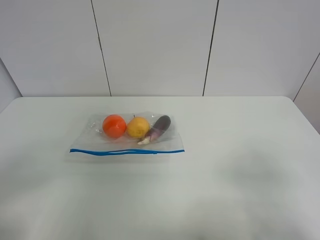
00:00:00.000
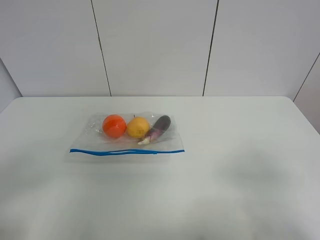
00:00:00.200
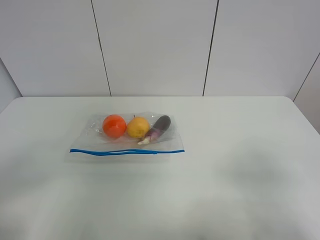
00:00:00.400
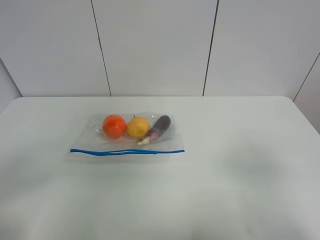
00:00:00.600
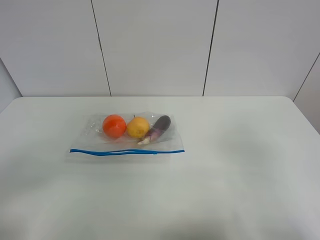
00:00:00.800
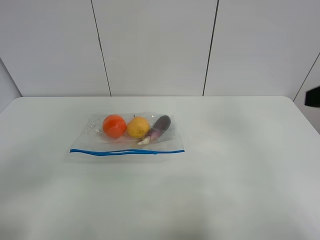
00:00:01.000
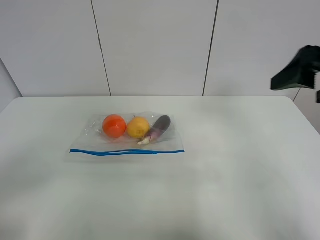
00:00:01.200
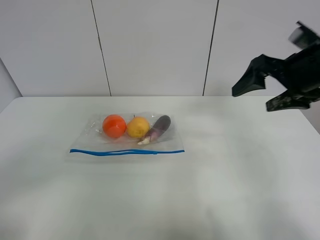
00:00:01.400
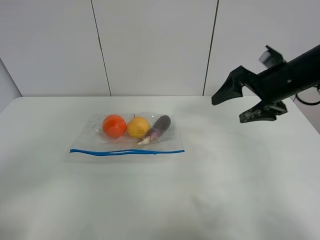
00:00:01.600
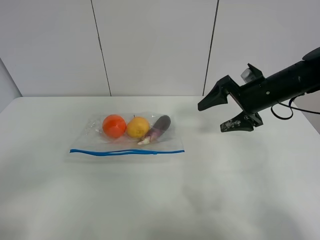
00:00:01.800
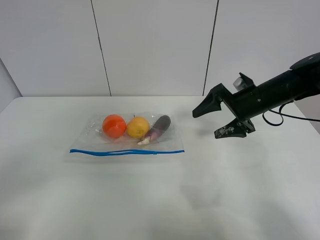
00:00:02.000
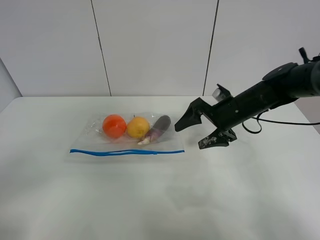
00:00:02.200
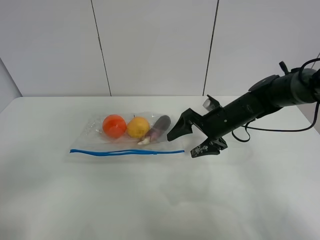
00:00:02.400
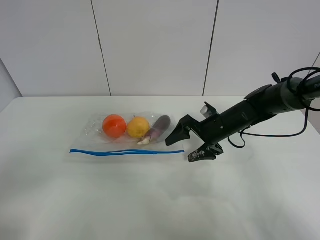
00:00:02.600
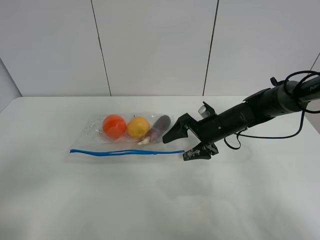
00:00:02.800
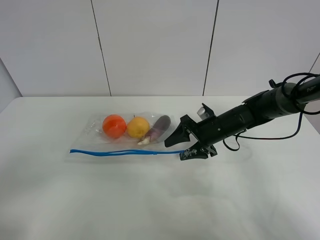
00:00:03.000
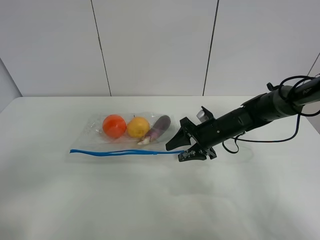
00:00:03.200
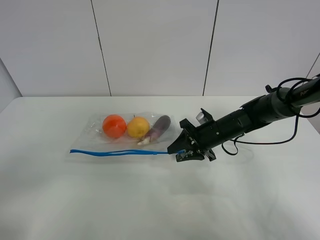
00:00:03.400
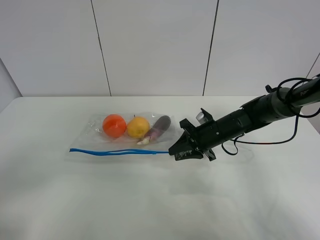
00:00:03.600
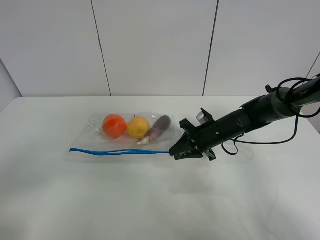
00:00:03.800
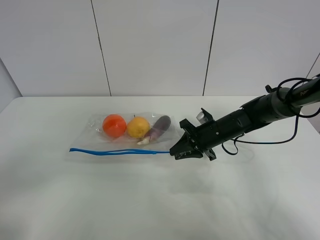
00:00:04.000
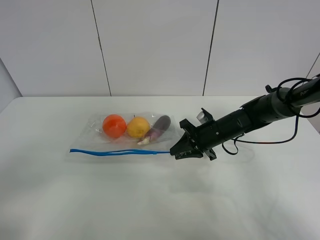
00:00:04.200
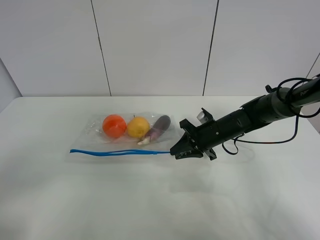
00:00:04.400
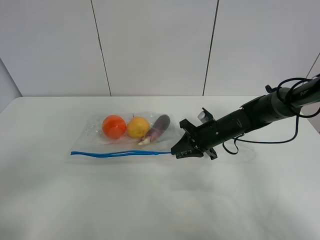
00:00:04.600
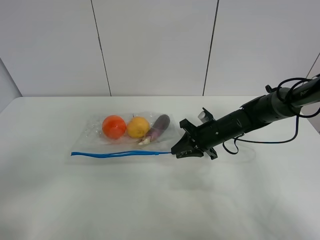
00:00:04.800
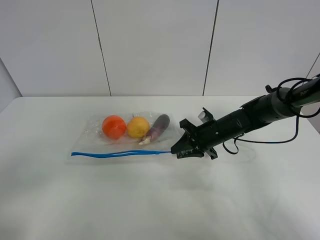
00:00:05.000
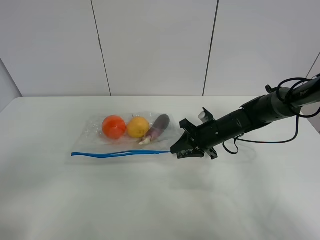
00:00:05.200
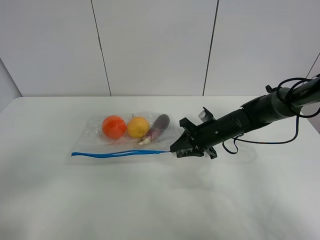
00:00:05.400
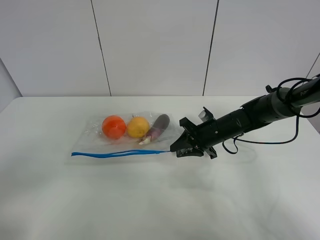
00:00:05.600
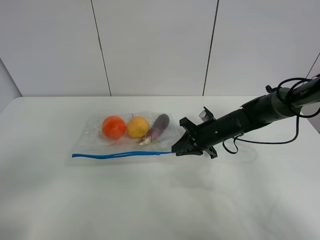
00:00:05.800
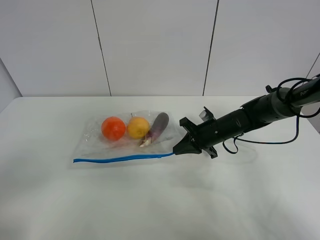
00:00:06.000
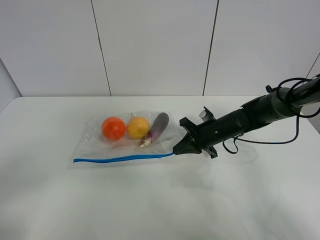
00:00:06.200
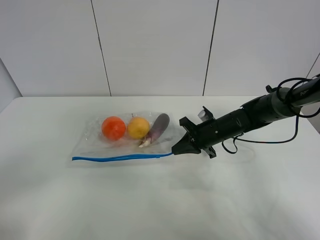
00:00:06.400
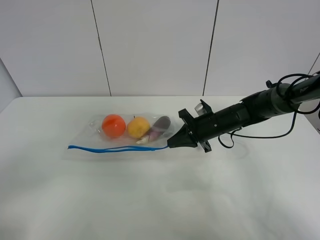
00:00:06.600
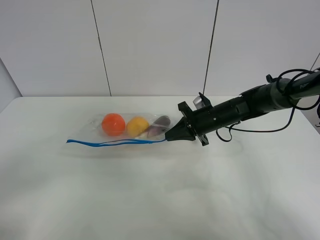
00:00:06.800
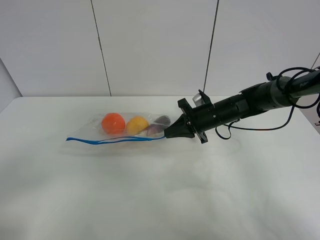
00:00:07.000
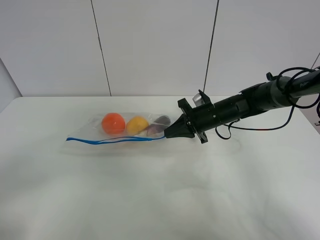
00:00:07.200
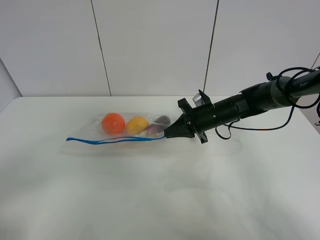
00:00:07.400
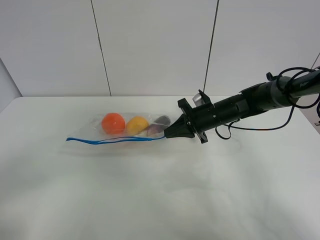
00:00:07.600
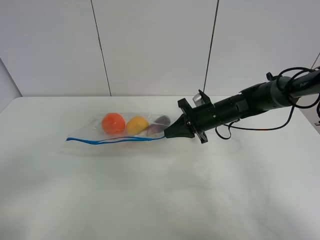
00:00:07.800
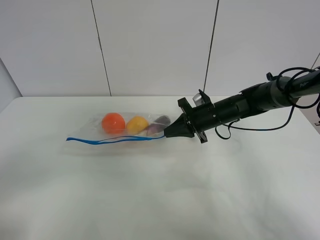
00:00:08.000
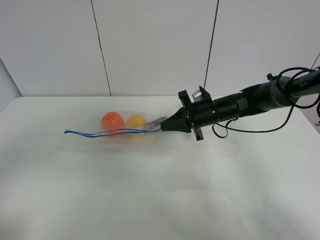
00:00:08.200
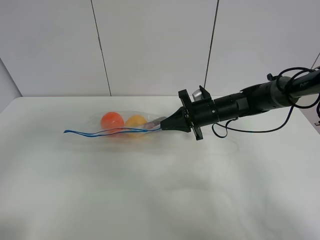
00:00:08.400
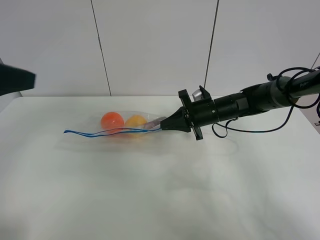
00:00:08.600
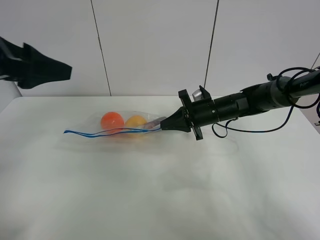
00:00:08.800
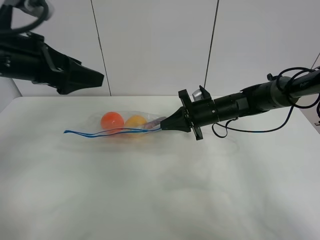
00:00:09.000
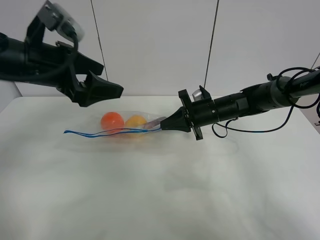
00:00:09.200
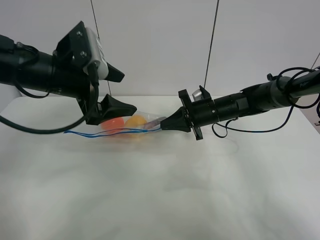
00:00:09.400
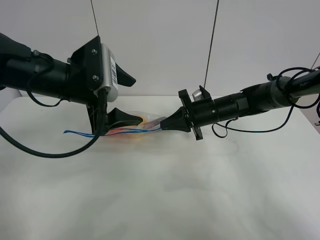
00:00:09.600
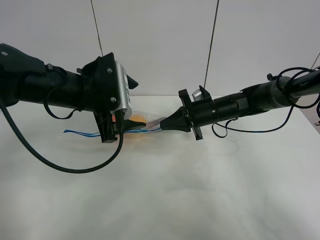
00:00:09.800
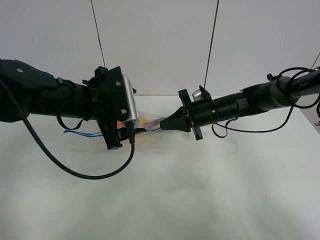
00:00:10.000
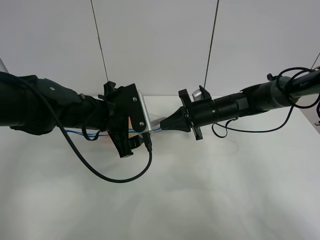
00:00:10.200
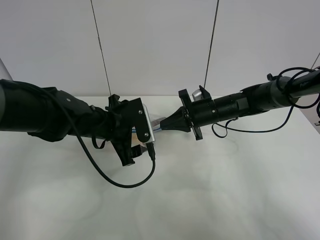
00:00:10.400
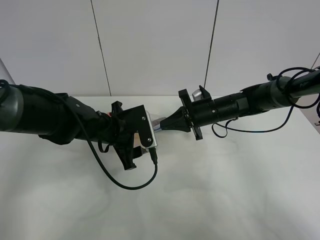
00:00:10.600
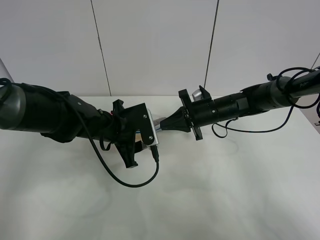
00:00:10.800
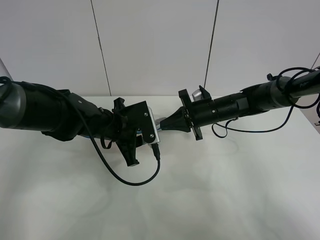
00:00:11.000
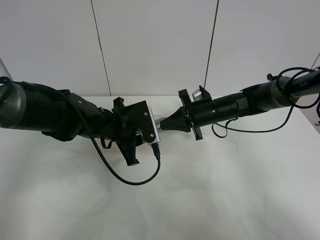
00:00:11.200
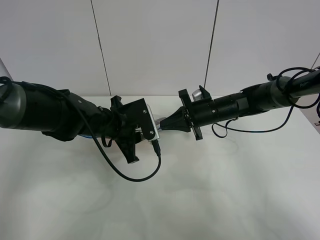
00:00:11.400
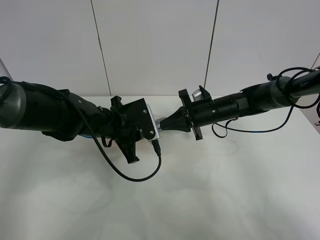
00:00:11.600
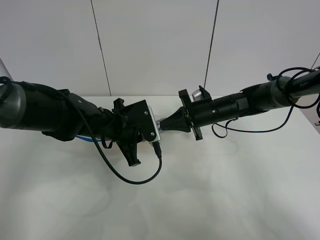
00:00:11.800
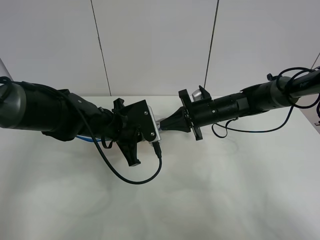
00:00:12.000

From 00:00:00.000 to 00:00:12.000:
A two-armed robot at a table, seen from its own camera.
Step, from 00:00:00.000 to 00:00:06.000: Grasp the fruit bag with right gripper.
Step, from 00:00:06.200 to 00:00:07.200: Lift the fruit bag with your right gripper.
From 00:00:00.000 to 00:00:01.600: The right gripper shifts some 30 cm forward.
From 00:00:01.600 to 00:00:03.000: The right gripper moves downward and to the left, approximately 20 cm.
From 00:00:03.000 to 00:00:04.400: The right gripper closes its fingers.
From 00:00:04.400 to 00:00:06.000: Both grippers stay about where they are.
From 00:00:06.000 to 00:00:07.600: The grippers move only a little.
From 00:00:07.600 to 00:00:09.000: The left gripper shifts some 30 cm forward.
From 00:00:09.000 to 00:00:10.400: The left gripper heads downward and to the right, covering some 20 cm.
From 00:00:10.400 to 00:00:12.000: The left gripper closes up.

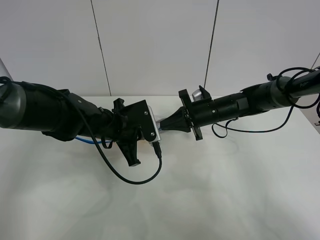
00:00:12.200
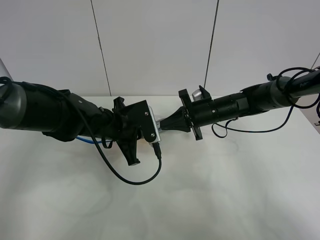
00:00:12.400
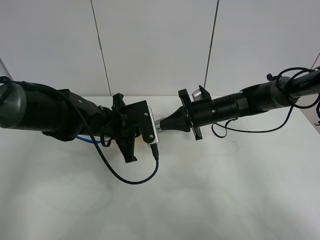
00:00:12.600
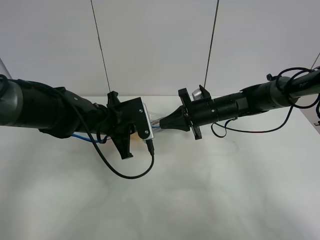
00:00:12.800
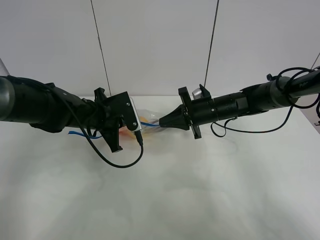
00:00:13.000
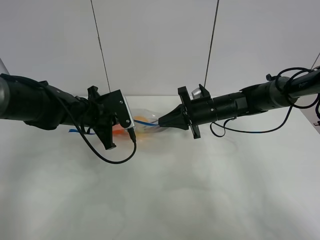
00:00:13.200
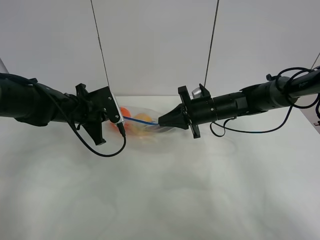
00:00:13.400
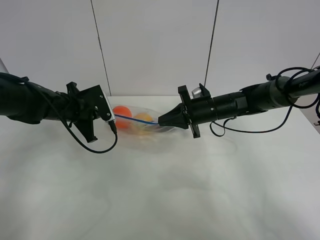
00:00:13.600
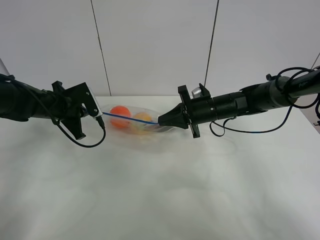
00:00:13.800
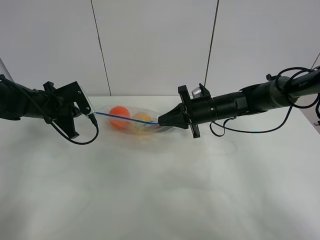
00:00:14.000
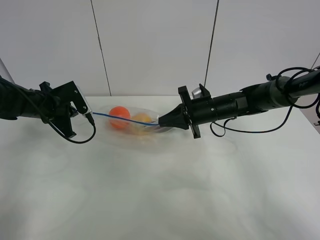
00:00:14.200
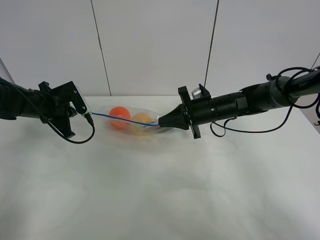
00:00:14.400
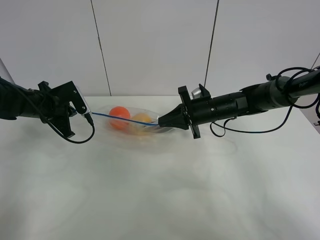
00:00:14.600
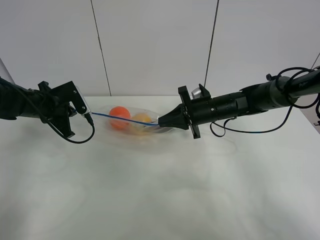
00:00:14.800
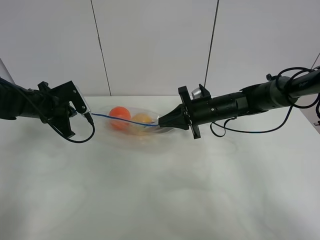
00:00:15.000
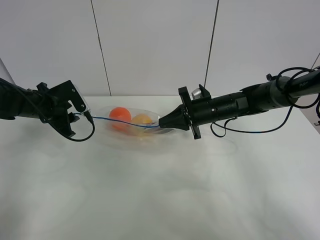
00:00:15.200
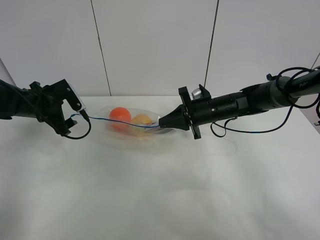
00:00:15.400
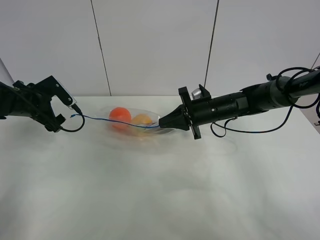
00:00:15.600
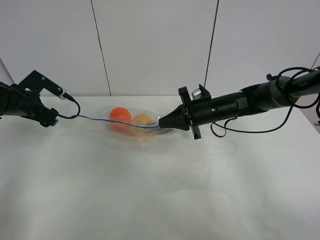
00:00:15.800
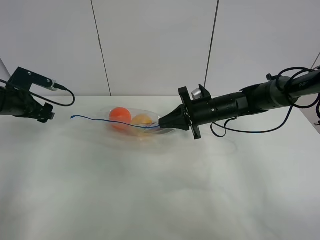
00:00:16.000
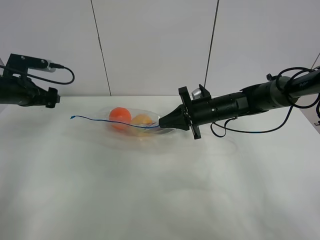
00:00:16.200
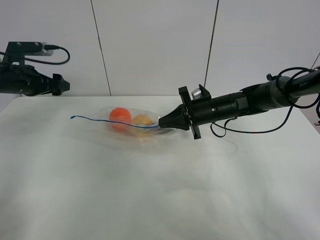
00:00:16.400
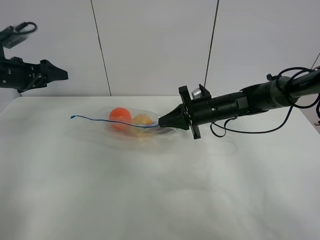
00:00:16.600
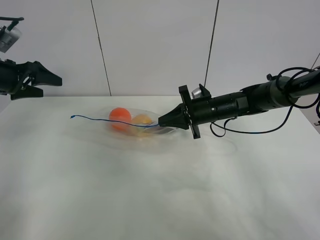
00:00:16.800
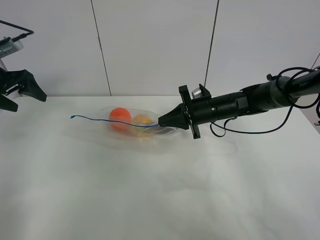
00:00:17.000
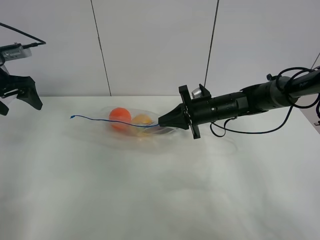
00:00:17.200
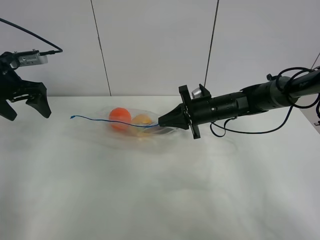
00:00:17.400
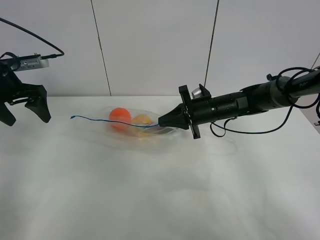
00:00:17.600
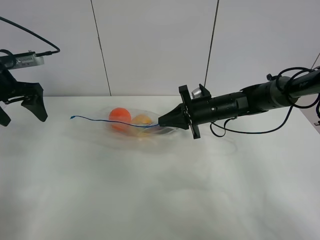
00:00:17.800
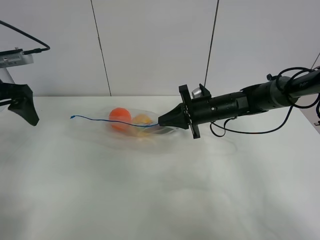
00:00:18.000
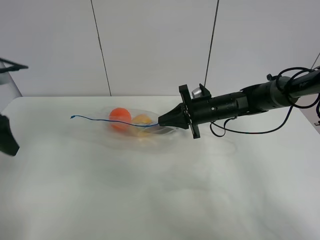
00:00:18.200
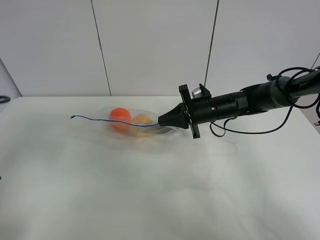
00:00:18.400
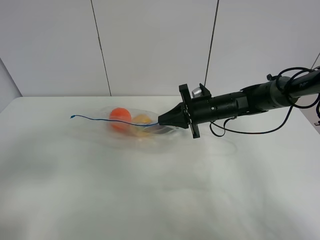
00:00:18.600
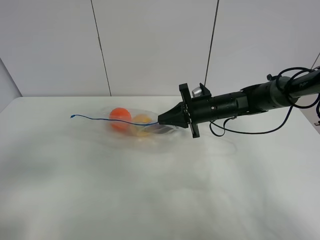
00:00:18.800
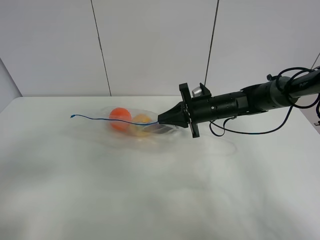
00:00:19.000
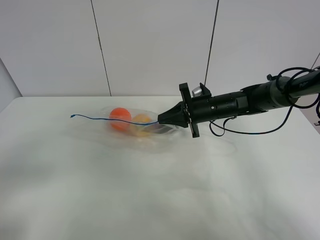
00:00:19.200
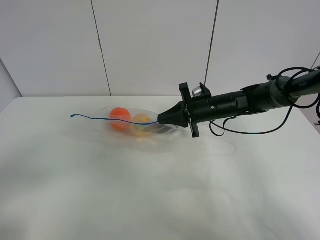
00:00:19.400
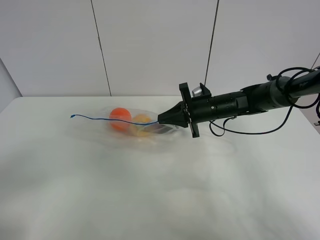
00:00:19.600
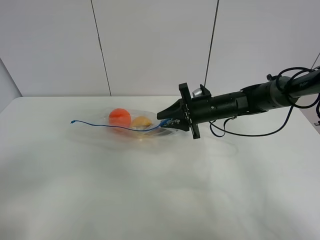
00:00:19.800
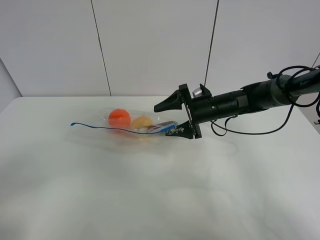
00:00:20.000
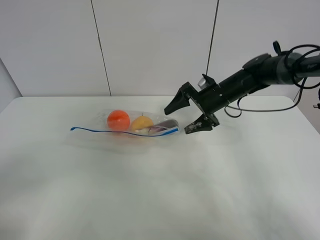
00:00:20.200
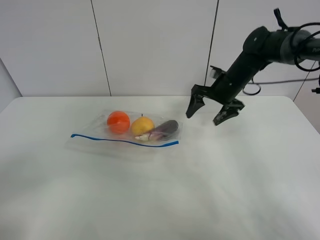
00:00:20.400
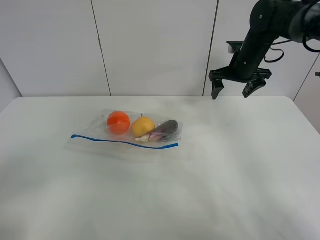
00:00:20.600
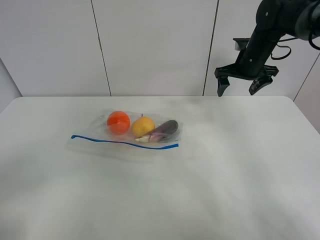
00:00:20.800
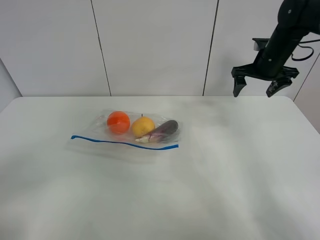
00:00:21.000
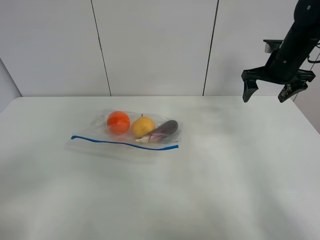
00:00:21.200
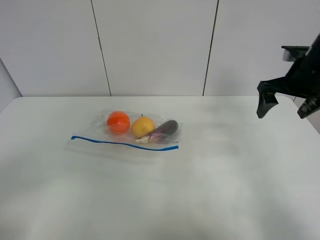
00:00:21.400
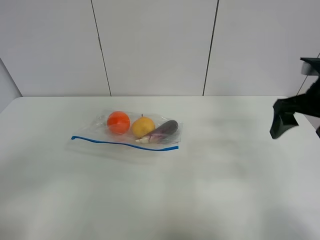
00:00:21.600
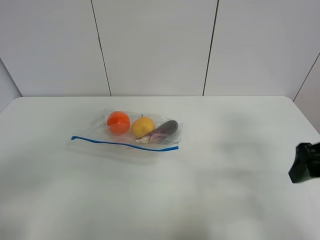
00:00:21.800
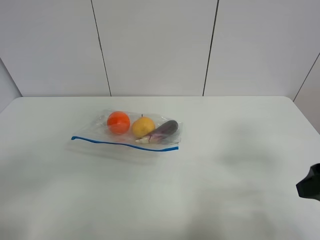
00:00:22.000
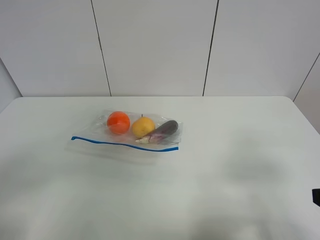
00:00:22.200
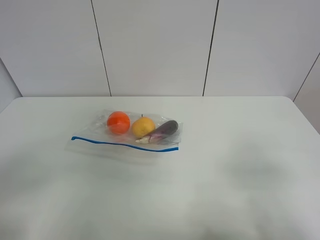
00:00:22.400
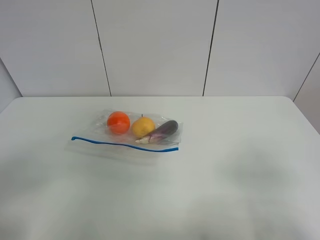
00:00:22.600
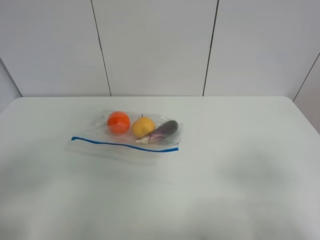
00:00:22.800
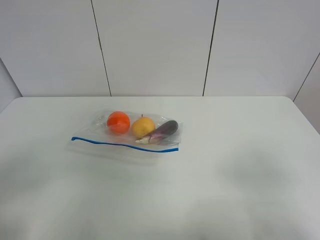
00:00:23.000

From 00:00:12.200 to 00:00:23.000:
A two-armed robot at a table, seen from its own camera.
Step, from 00:00:12.200 to 00:00:15.400: Pull the fruit bag with left gripper.
From 00:00:12.200 to 00:00:13.800: The left gripper travels to the left by approximately 15 cm.
From 00:00:13.800 to 00:00:15.200: The left gripper opens up.
From 00:00:15.200 to 00:00:16.800: The left gripper heads upward and to the left, covering some 10 cm, and opens.
From 00:00:16.800 to 00:00:18.400: The left gripper is displaced backward by about 25 cm.
From 00:00:18.400 to 00:00:20.000: The right gripper opens up. Meanwhile the left gripper goes approximately 15 cm backward.
From 00:00:20.000 to 00:00:21.400: The right gripper shifts about 20 cm upward, to the right and backward.
From 00:00:21.400 to 00:00:23.000: The right gripper travels backward by approximately 30 cm.
